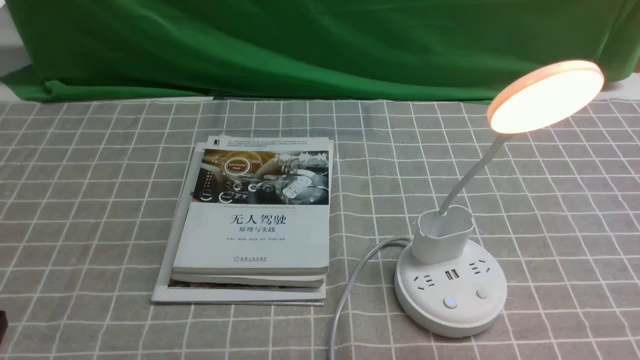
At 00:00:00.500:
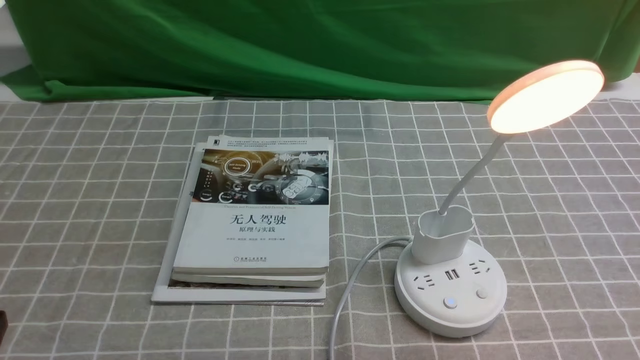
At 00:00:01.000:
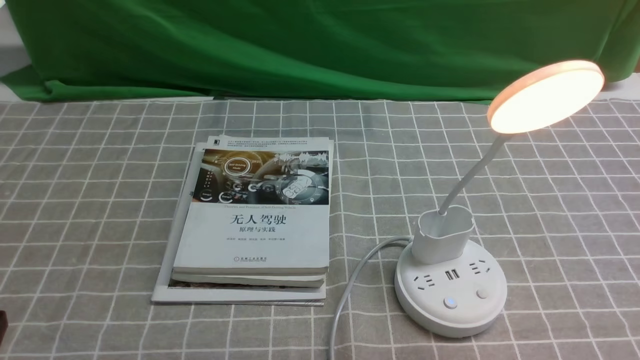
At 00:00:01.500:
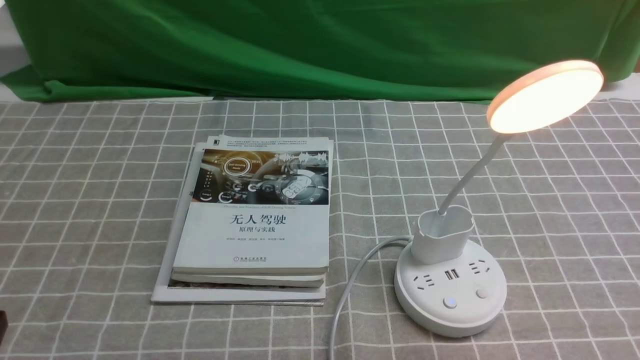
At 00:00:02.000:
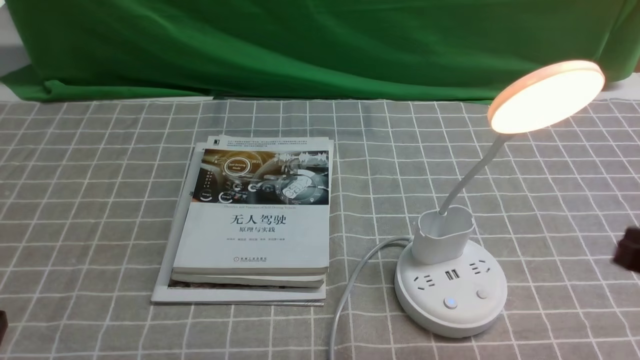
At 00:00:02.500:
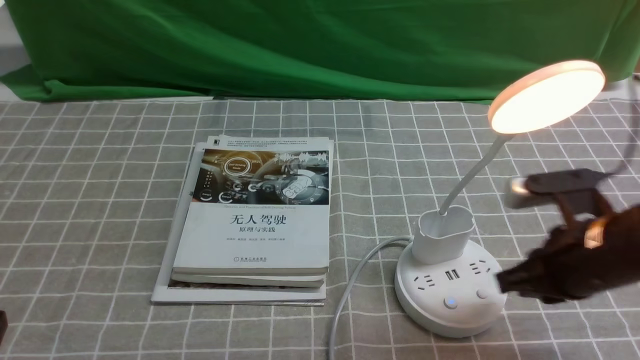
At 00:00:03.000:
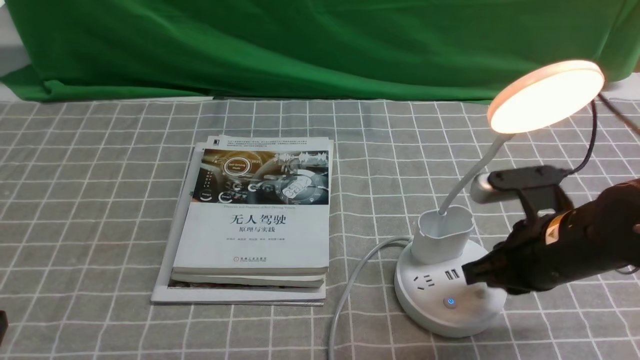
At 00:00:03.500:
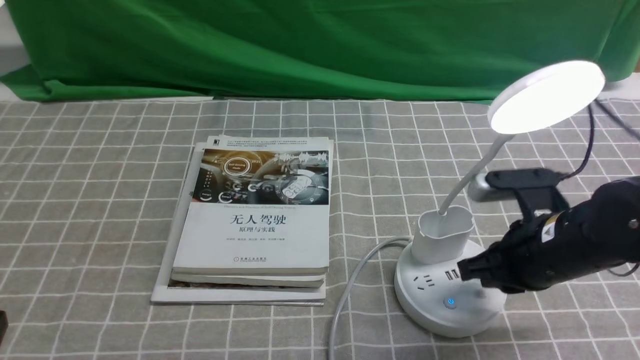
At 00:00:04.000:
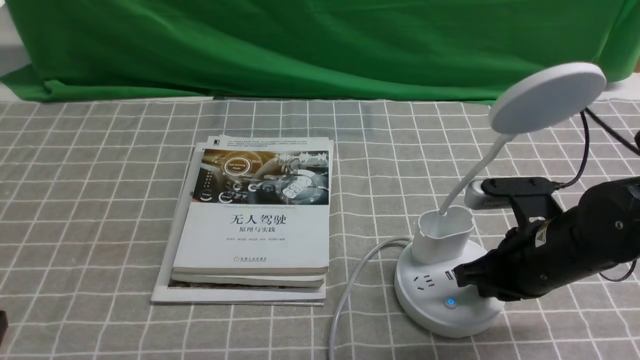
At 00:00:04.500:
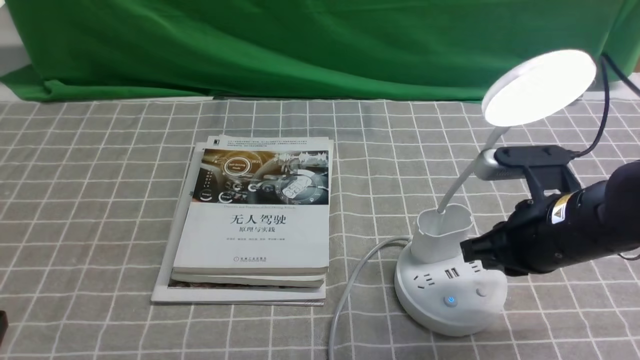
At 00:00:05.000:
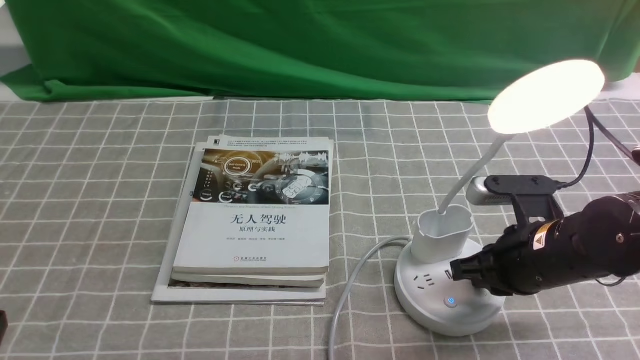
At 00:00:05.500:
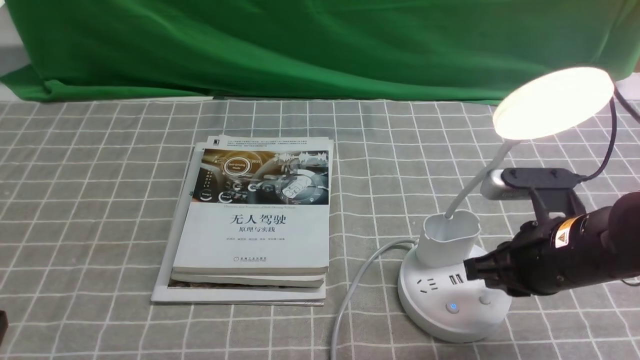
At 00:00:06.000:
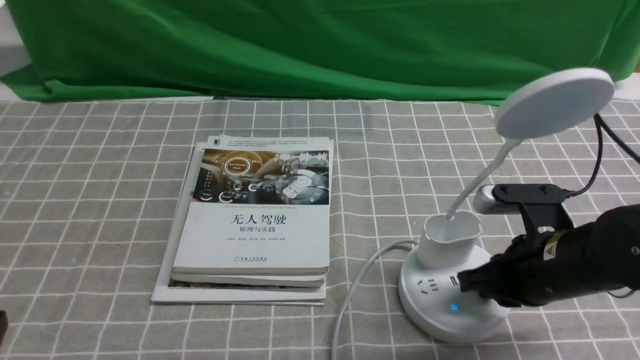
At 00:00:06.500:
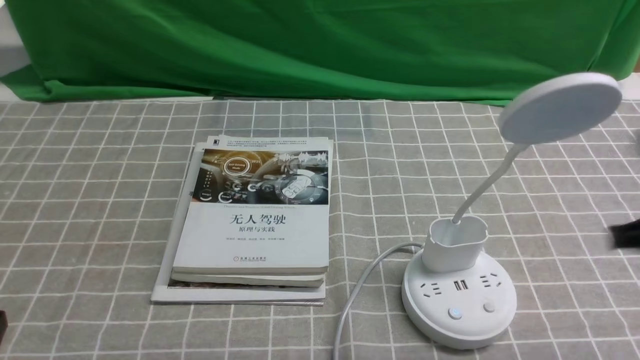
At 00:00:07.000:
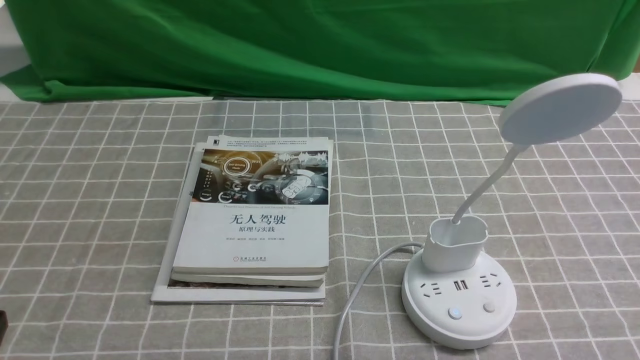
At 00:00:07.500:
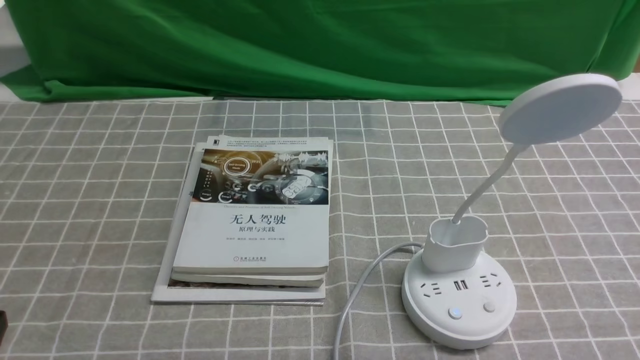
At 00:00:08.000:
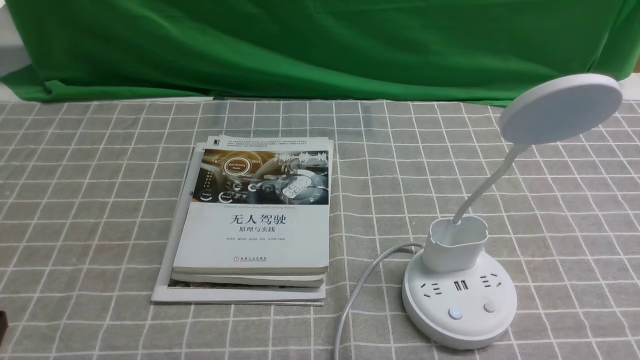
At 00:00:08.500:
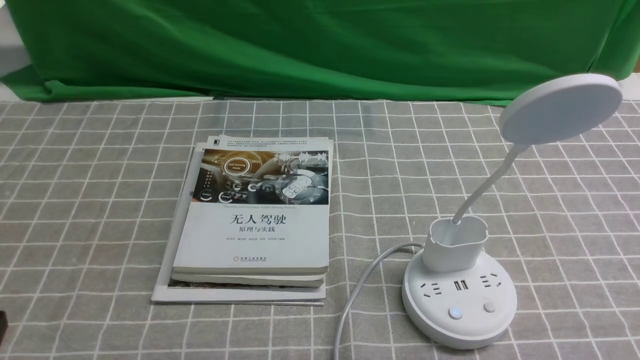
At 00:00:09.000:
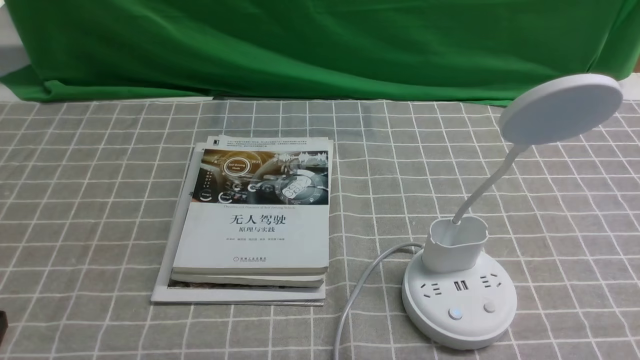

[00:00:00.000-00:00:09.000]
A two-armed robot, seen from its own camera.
Task of the whole recording: turn off the desk lamp on the grey coffee tablecloth by hand.
Step, 00:00:00.000 to 00:00:06.000: use the right arm to press the button switch on the lamp holder.
00:00:02.000 to 00:00:04.500: The right gripper goes roughly 10 cm to the left and forward, and closes and opens again.
00:00:04.500 to 00:00:07.000: The right gripper moves backward, to the right and upward, roughly 20 cm, and closes its fingers.

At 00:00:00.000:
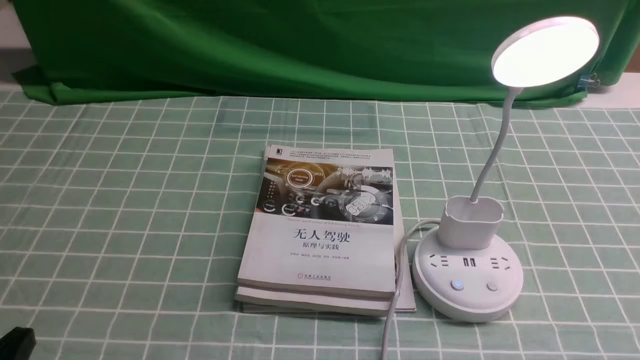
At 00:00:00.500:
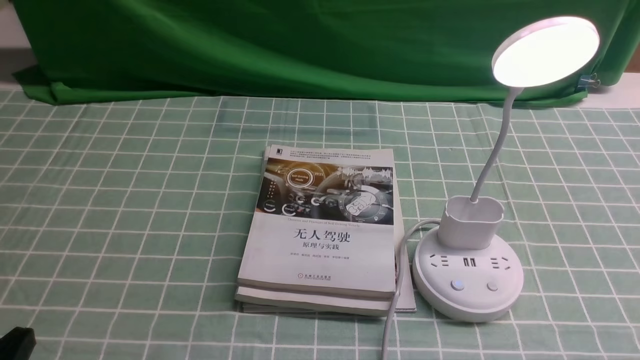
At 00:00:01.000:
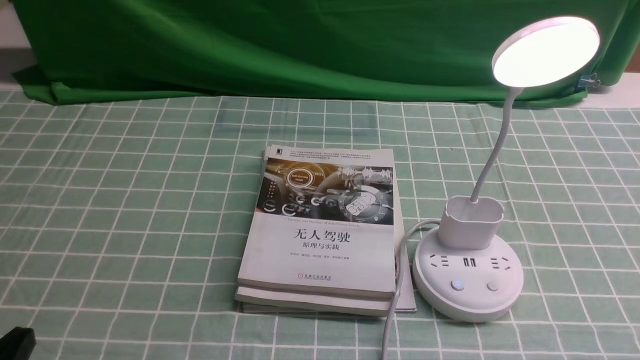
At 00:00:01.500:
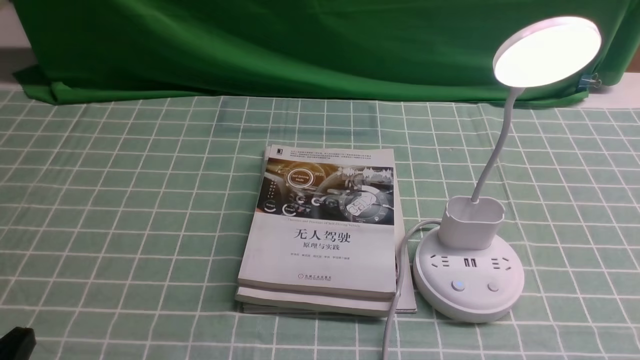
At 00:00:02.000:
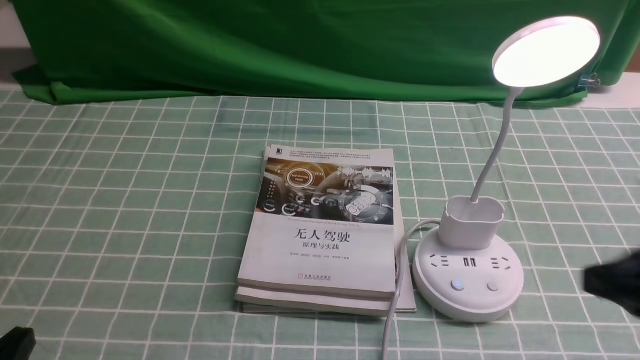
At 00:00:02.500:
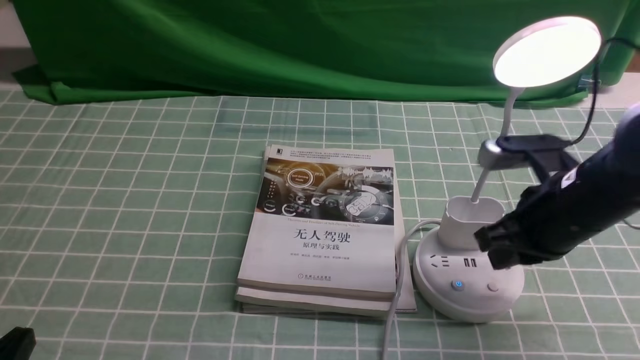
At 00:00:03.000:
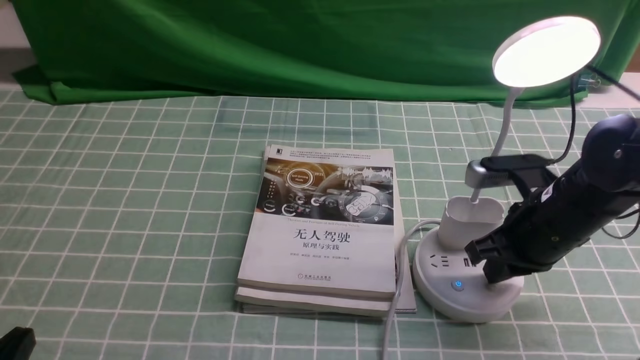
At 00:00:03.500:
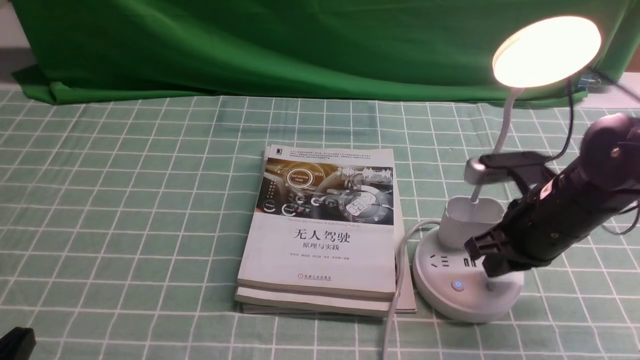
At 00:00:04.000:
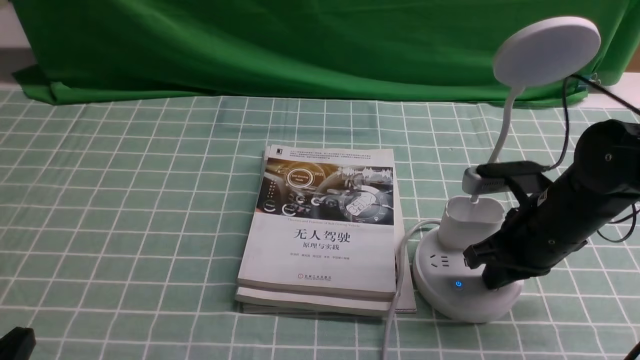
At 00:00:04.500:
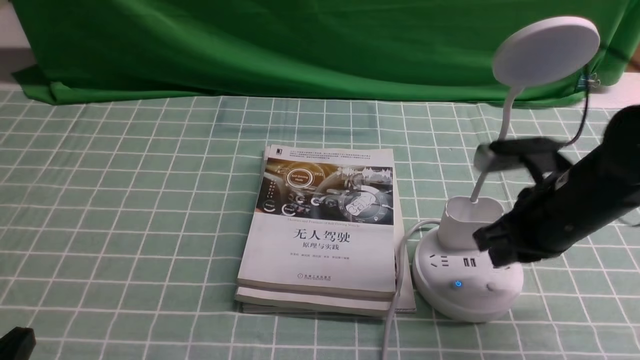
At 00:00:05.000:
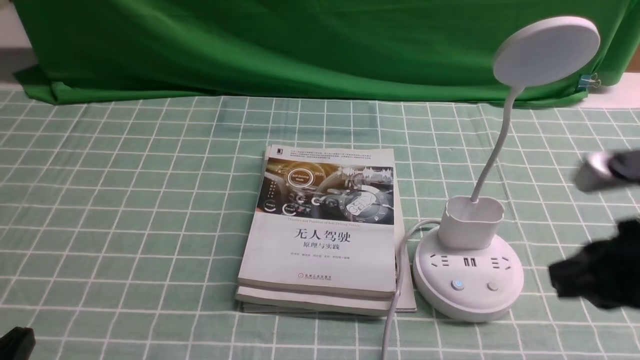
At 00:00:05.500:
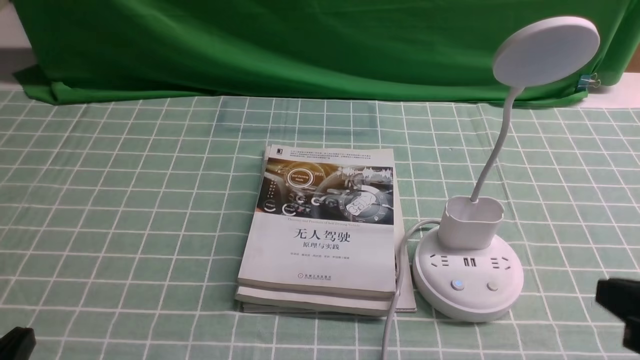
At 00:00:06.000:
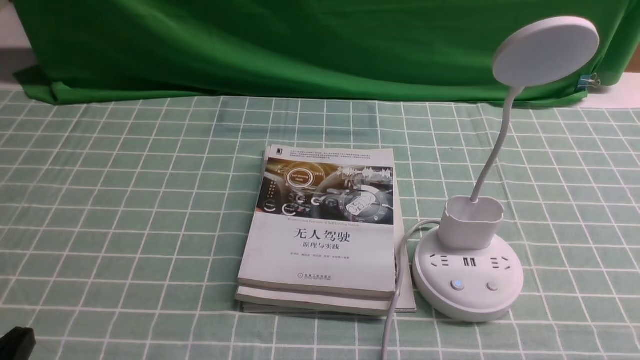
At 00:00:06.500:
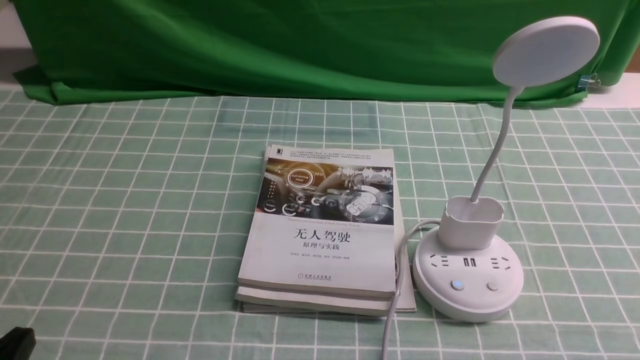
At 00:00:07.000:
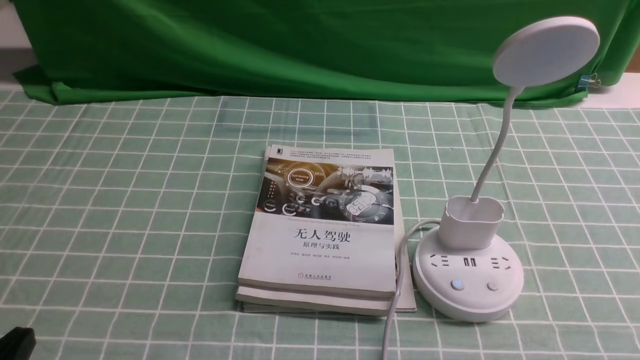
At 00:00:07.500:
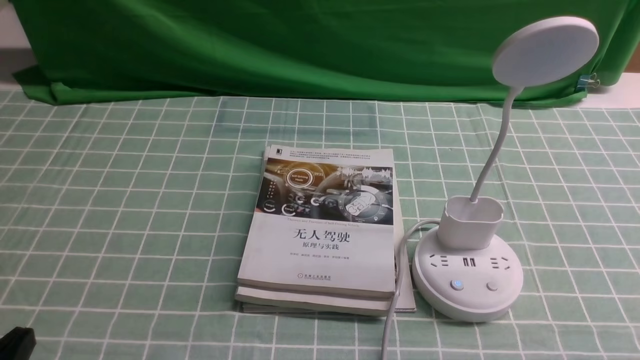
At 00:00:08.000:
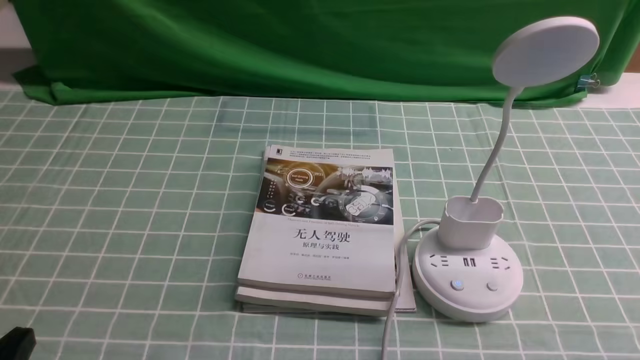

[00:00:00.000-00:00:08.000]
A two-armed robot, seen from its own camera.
Task of the whole recording: turn off the desk lamp on the blue coffee tablecloth by hand.
Step, 00:00:00.000 to 00:00:04.000: use the right arm to press the button switch on the lamp holder.
00:00:00.000 to 00:00:02.000: The right gripper moves forward and upward, some 15 cm, and closes its fingers.
00:00:02.000 to 00:00:04.000: The right gripper travels forward, downward and to the left by some 15 cm.
00:00:04.000 to 00:00:06.000: The right gripper goes roughly 20 cm backward.
